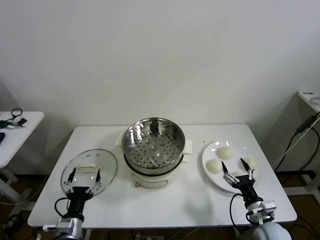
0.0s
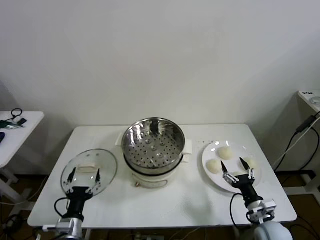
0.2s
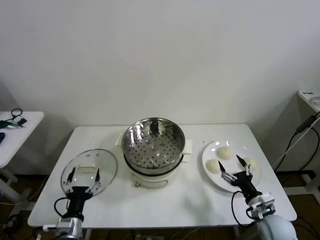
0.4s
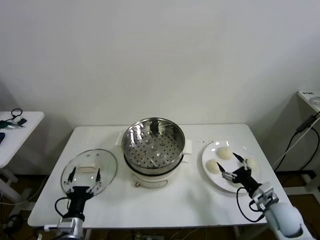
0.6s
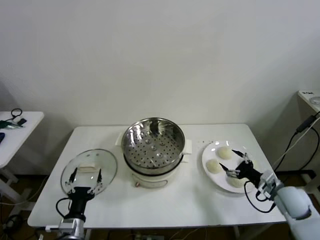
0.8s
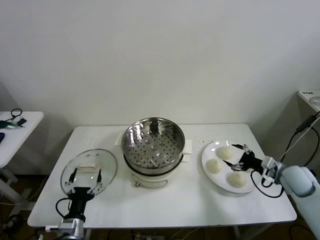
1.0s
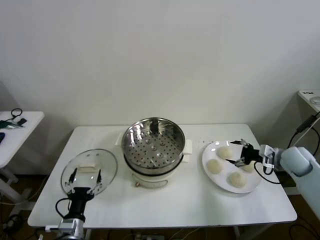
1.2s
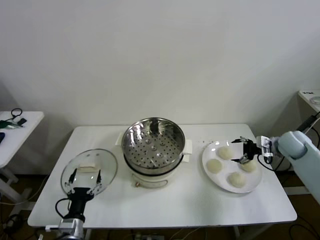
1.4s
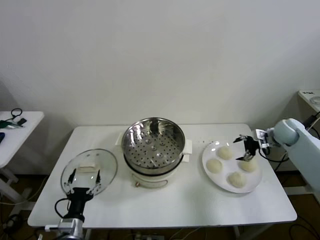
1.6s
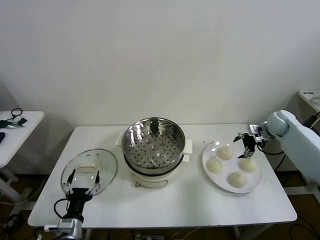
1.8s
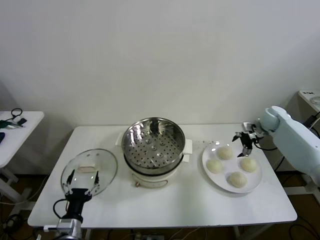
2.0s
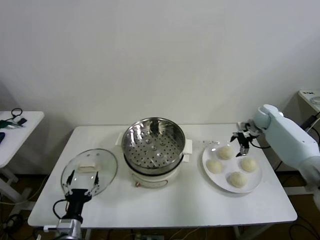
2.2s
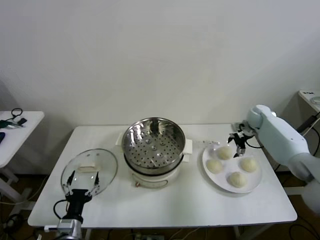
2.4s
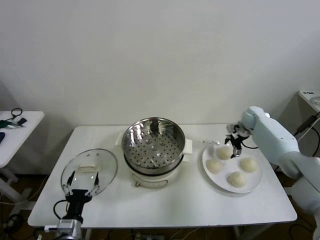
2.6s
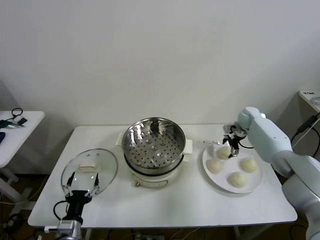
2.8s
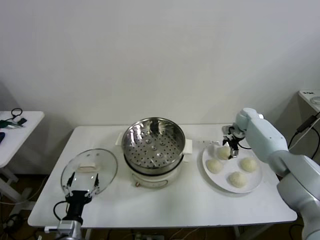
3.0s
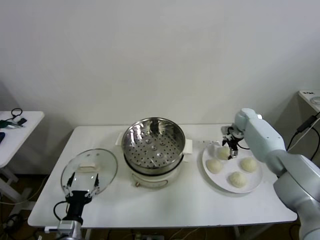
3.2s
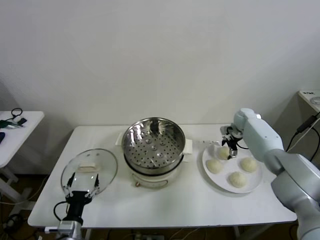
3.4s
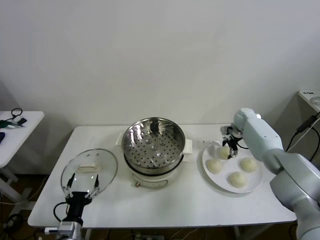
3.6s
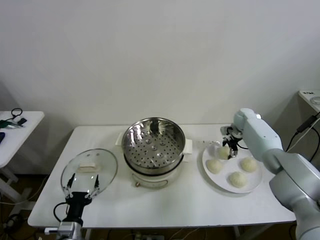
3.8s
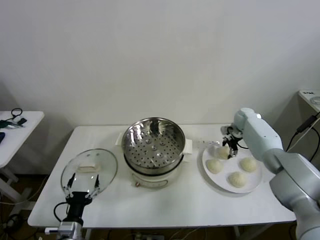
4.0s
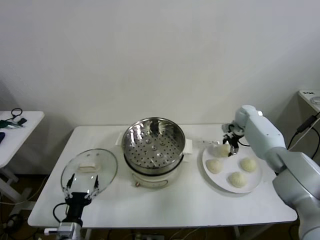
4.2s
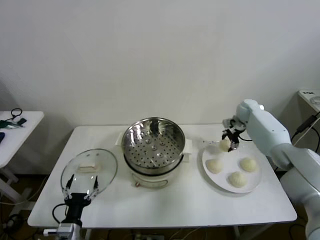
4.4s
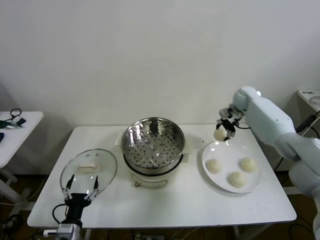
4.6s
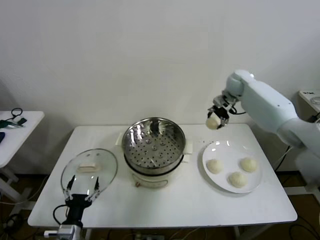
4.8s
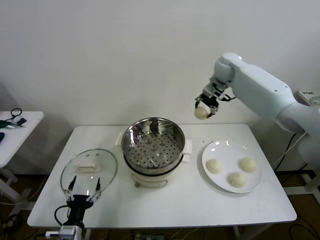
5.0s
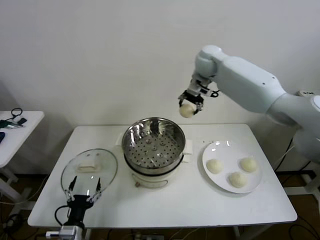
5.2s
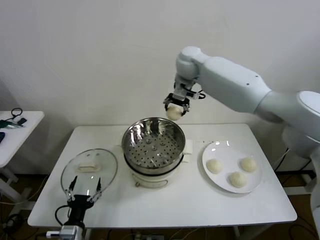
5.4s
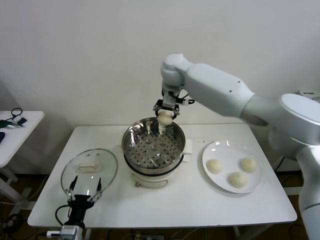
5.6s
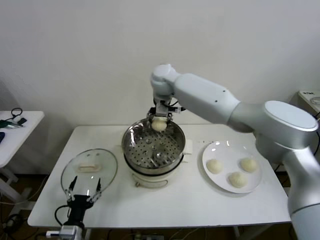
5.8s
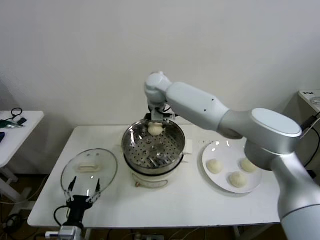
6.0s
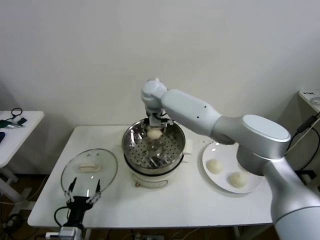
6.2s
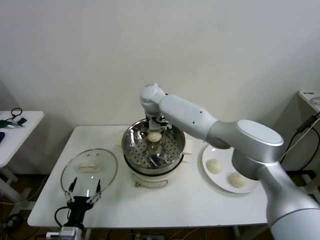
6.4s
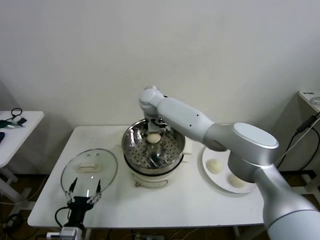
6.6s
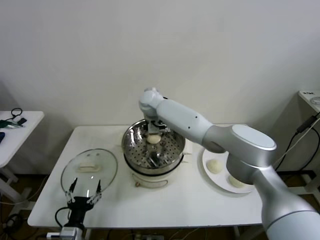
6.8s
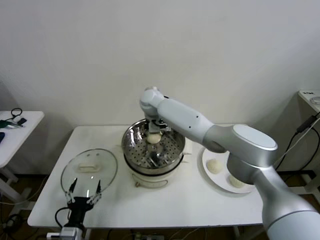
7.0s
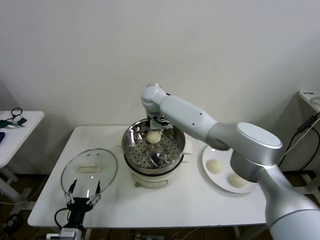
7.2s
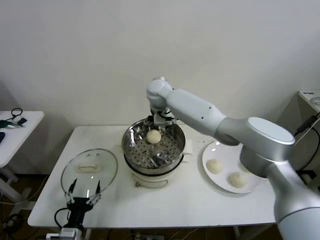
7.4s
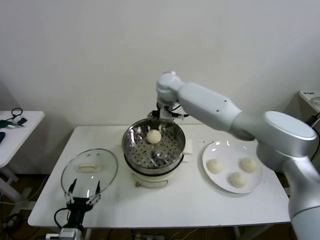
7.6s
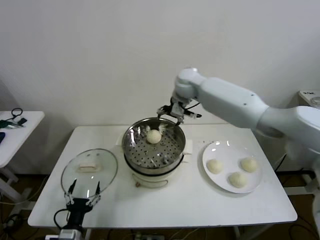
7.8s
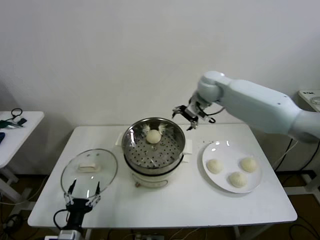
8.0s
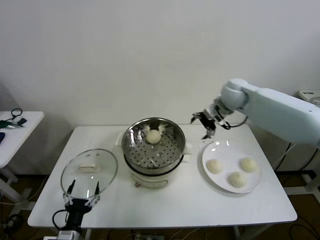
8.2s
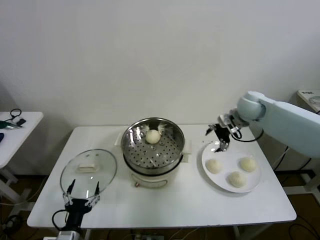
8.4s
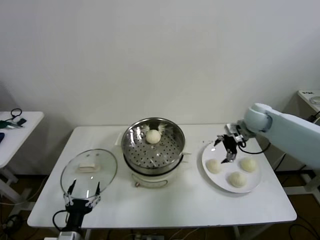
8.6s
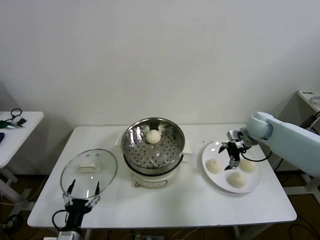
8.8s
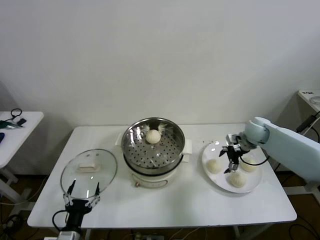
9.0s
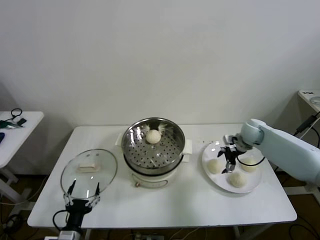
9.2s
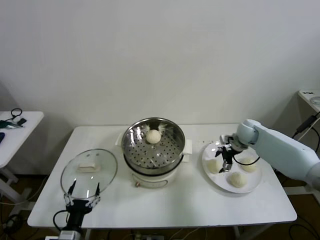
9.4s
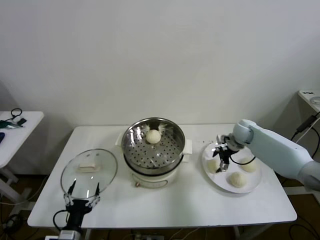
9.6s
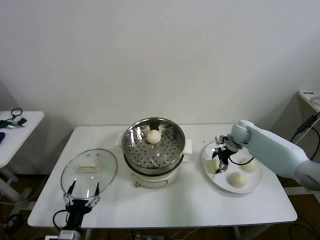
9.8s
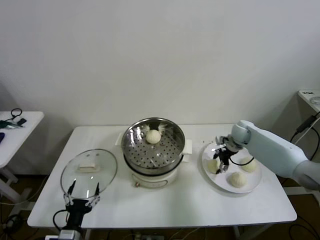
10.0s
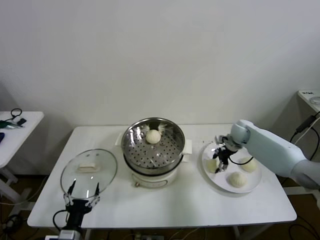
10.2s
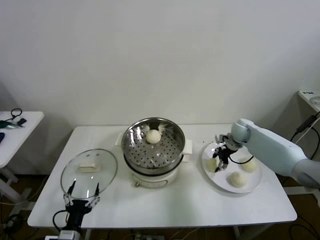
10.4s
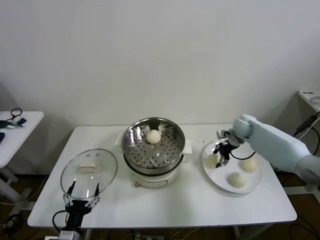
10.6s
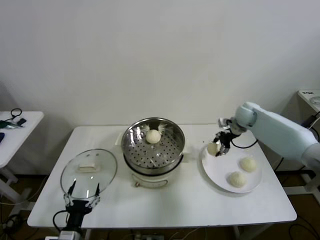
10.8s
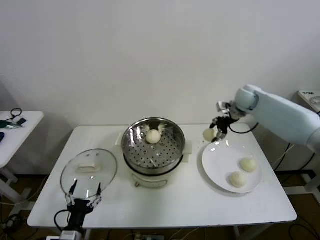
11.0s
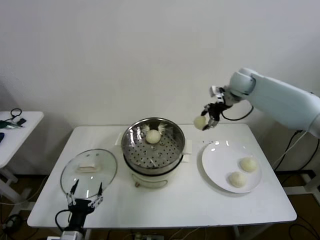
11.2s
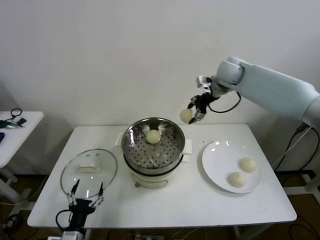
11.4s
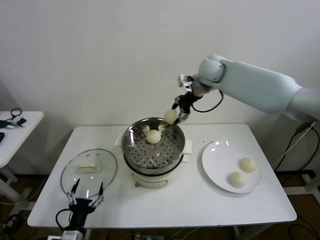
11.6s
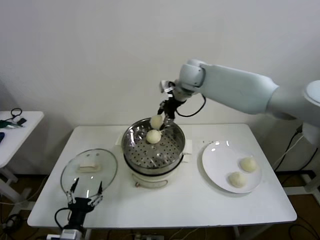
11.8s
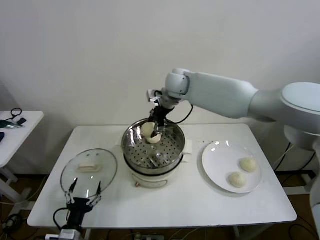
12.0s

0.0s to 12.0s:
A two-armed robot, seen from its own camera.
Step, 0.0s to 3.8s: Grasp the baozi in the plate with right gripper.
Step, 4.0s to 6.8s: Place the baozi on the steamer with right gripper.
Step, 7.0s to 10.0s: Grasp the baozi in the plate with right gripper.
1.6s to 3.0s: The right gripper goes roughly 15 cm forward, to the left and downward.
3.0s to 4.4s: The right gripper goes some 5 cm upward, and closes its fingers.
4.4s to 6.0s: The right gripper heads to the left, covering about 40 cm.
6.0s to 7.6s: The right gripper heads to the right, covering roughly 5 cm, and opens.
7.6s to 9.0s: The right gripper shifts some 35 cm to the right and downward.
9.0s to 10.4s: The right gripper shifts by approximately 5 cm, and closes its fingers.
10.4s to 12.0s: The right gripper shifts roughly 35 cm to the left and upward.

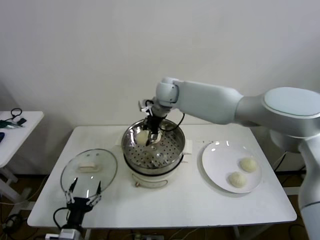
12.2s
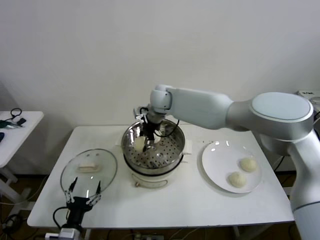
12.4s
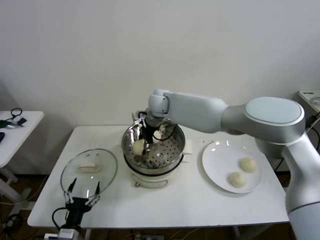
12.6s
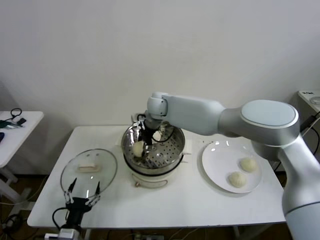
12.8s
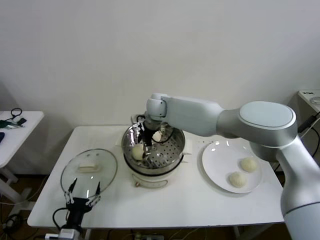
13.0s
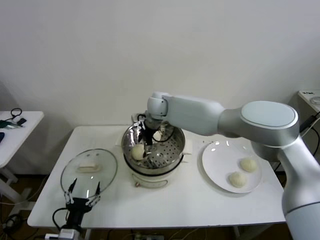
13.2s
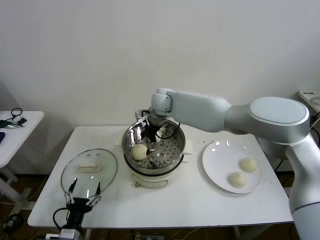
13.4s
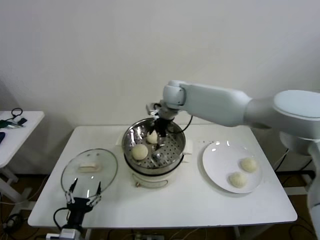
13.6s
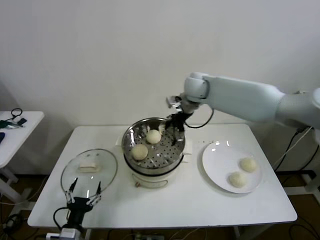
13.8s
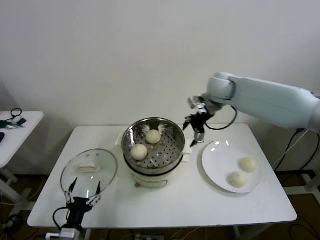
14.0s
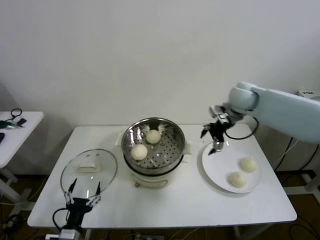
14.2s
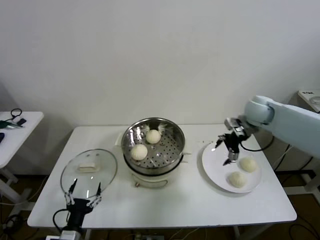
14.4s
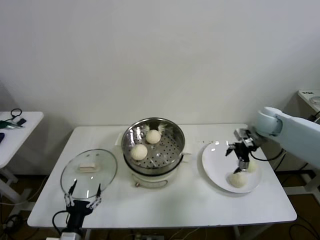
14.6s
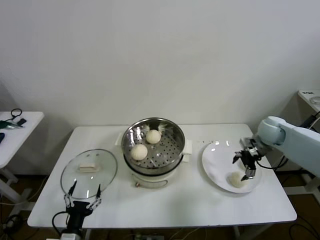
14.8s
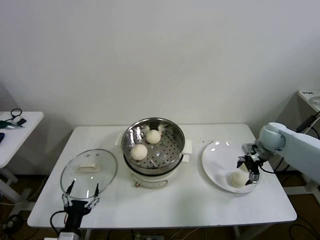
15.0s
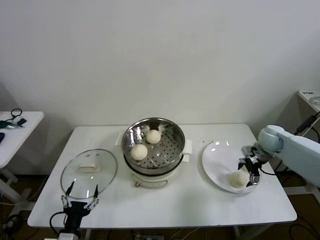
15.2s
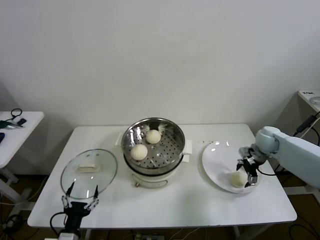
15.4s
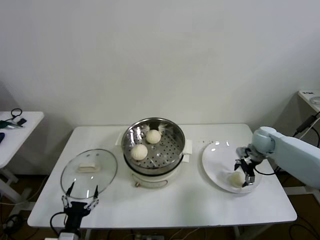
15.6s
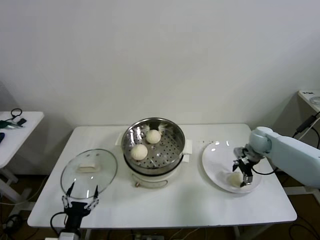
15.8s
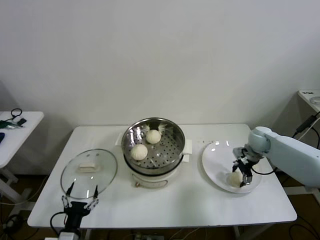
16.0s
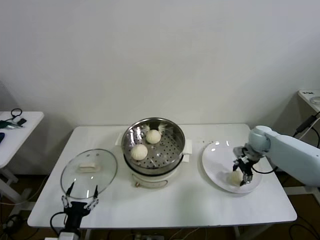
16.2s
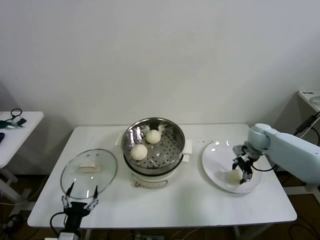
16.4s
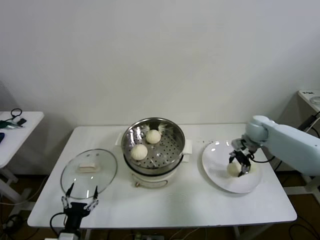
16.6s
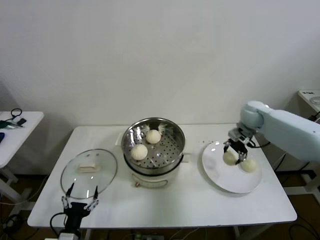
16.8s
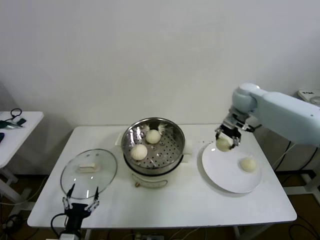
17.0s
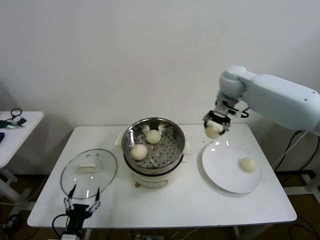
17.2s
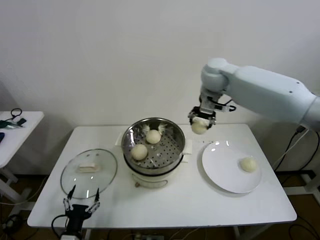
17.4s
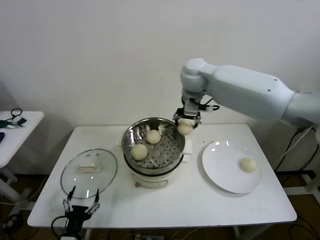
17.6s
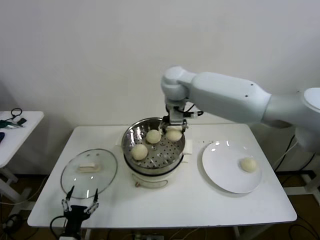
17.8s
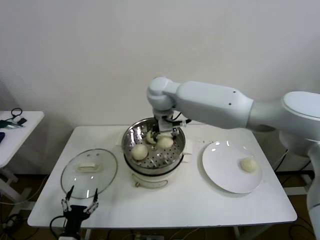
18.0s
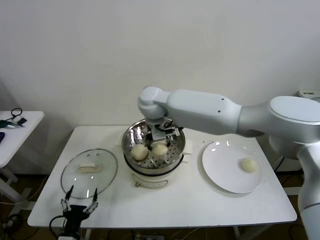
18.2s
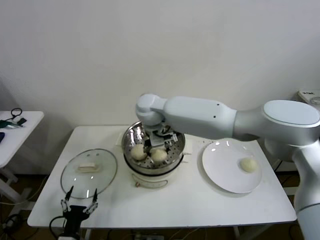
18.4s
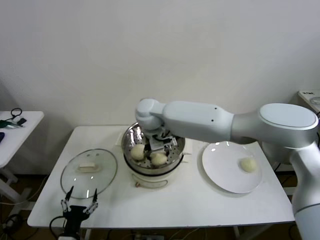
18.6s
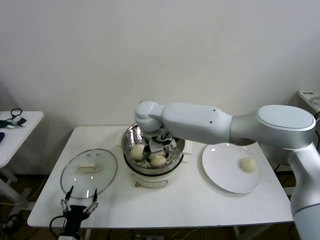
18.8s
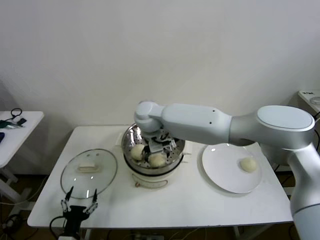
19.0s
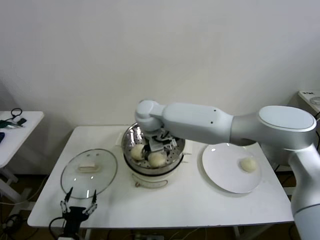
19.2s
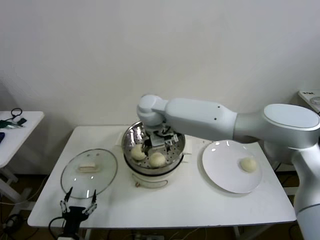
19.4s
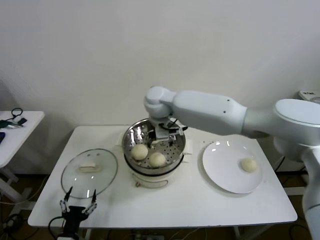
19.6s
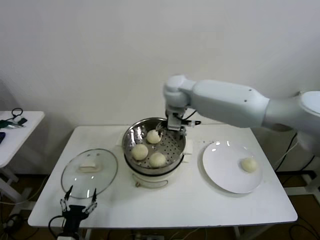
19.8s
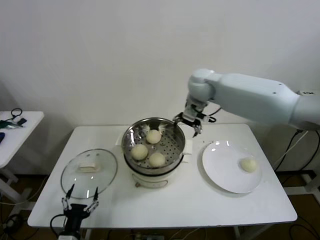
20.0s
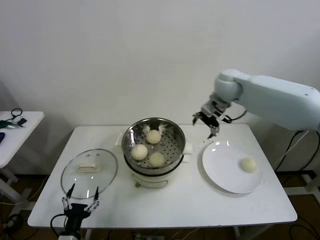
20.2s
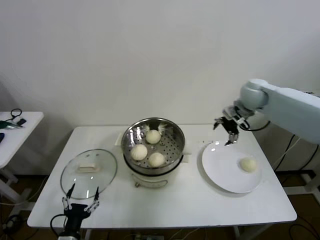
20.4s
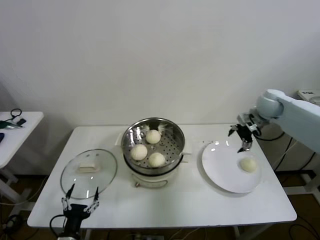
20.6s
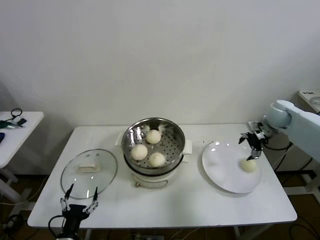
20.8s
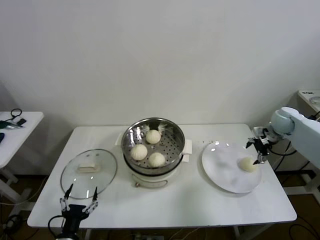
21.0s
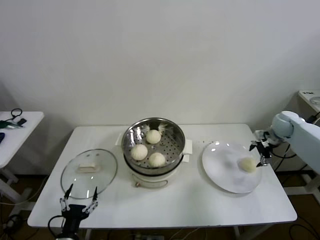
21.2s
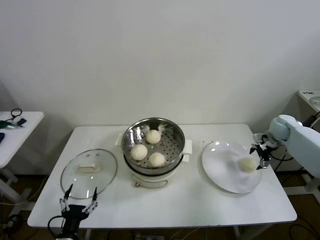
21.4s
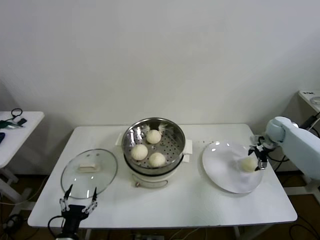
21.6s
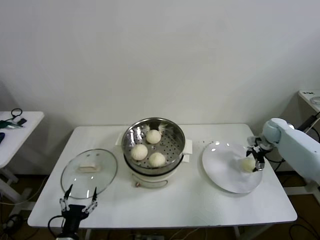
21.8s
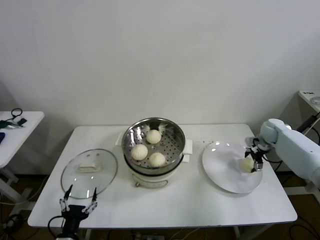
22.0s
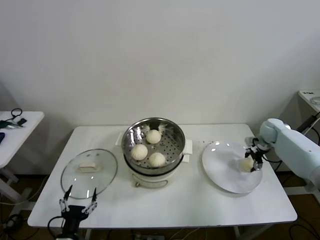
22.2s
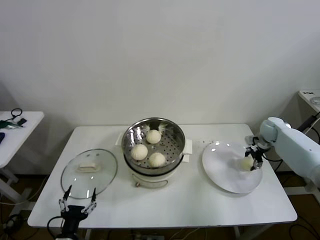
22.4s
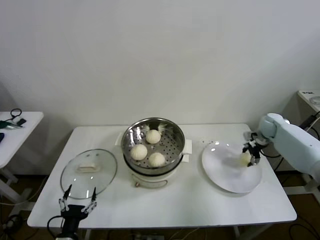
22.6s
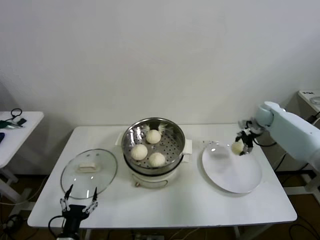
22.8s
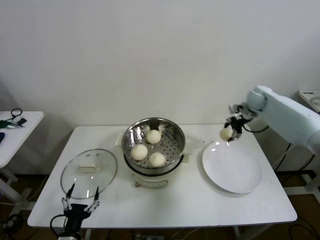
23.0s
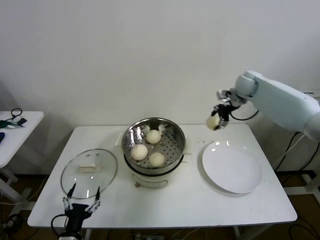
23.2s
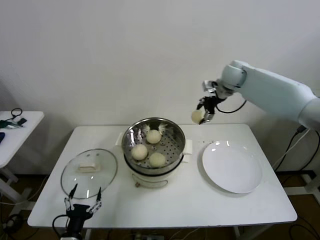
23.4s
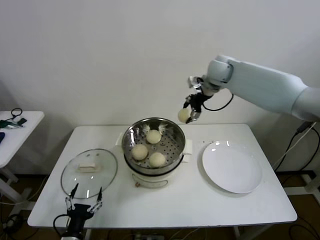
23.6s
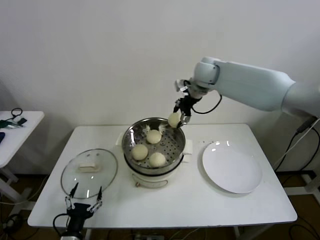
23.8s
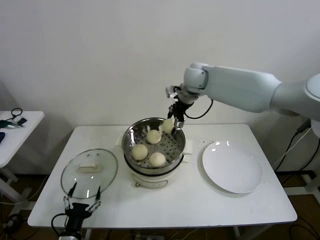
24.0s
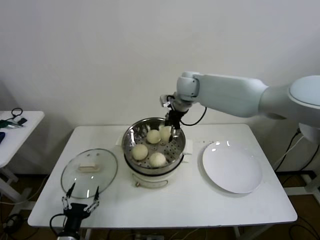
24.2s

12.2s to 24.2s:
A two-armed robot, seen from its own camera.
Step, 13.0s to 16.0s: Grasp the baozi in the plate with right gripper.
Step, 16.2s to 19.0s: Place the baozi on the steamer with right gripper.
Step, 19.2s to 22.2s: Grasp the baozi in the plate with right gripper.
12.2s to 13.8s: The right gripper moves to the right, about 10 cm, and opens up.
13.8s to 15.2s: The right gripper is displaced to the right and downward by approximately 35 cm.
15.2s to 16.6s: The right gripper shifts by about 5 cm, and closes its fingers.
16.6s to 18.2s: The right gripper goes about 40 cm to the left.
18.2s to 19.8s: The right gripper goes some 10 cm to the right, and opens up.
19.8s to 21.2s: The right gripper goes approximately 40 cm to the right.
21.2s to 22.6s: The right gripper moves about 5 cm, and closes its fingers.
22.6s to 24.2s: The right gripper travels to the left and upward by some 40 cm.
